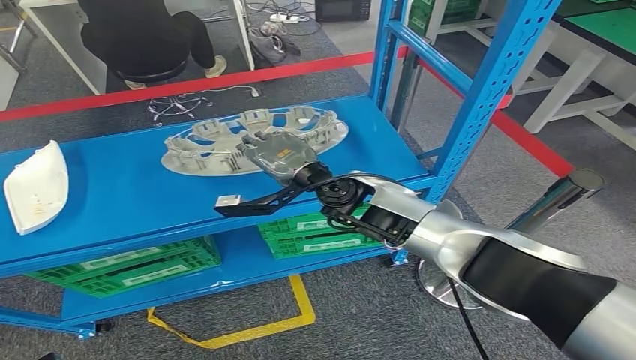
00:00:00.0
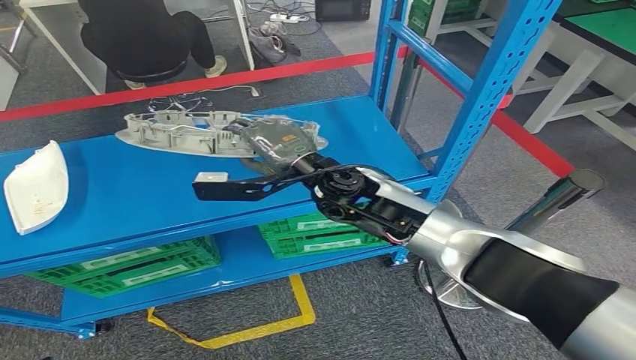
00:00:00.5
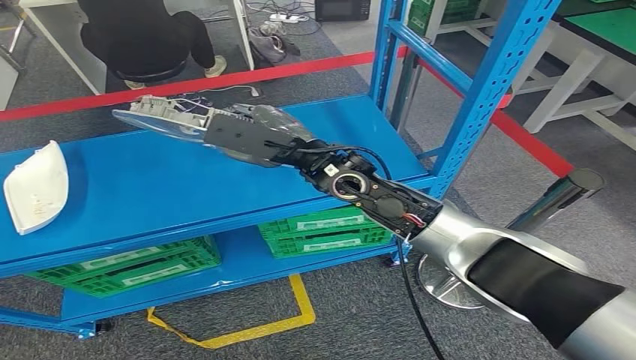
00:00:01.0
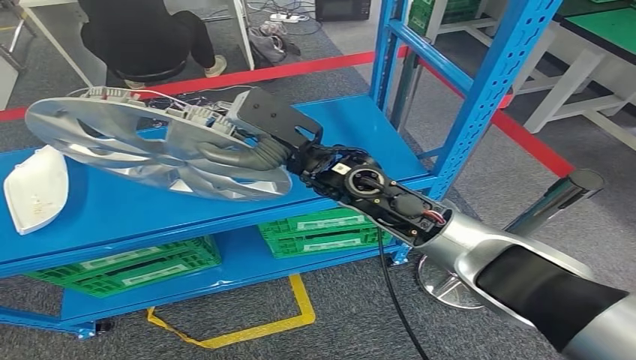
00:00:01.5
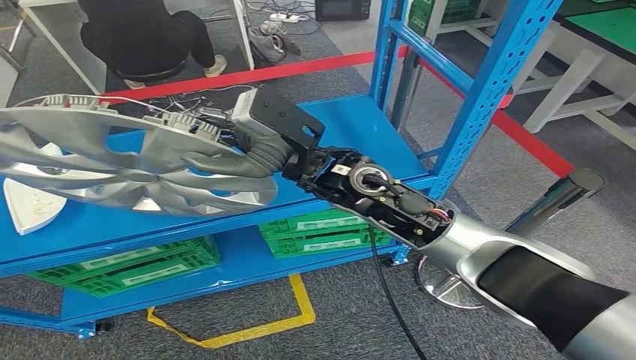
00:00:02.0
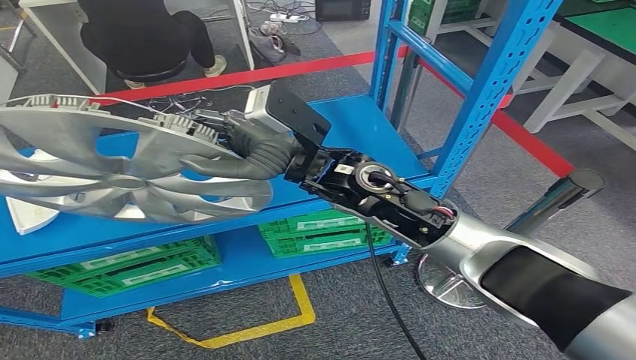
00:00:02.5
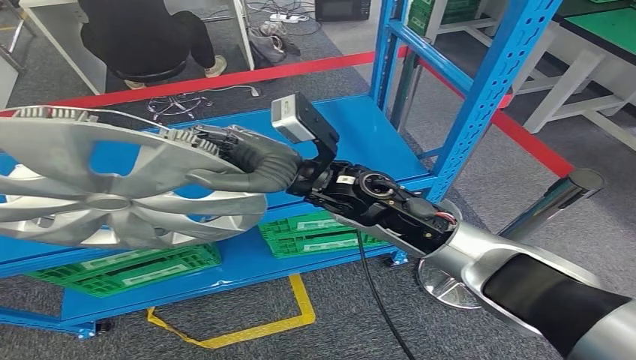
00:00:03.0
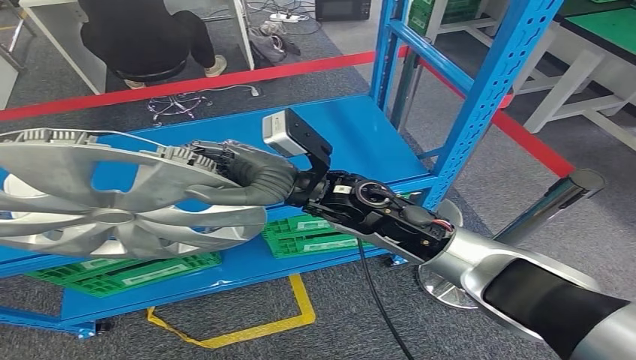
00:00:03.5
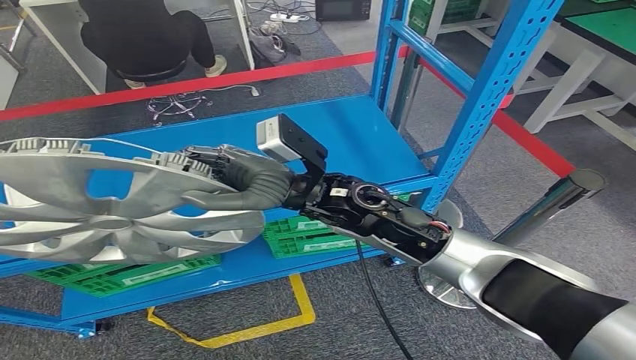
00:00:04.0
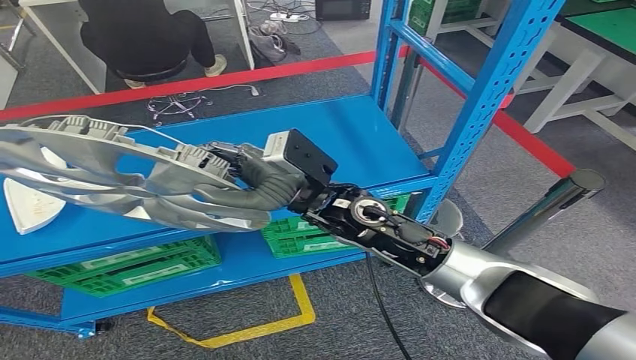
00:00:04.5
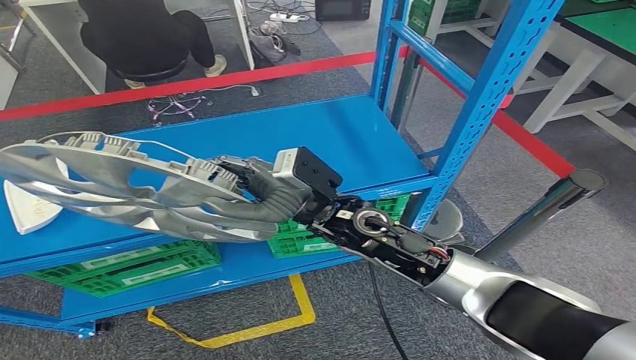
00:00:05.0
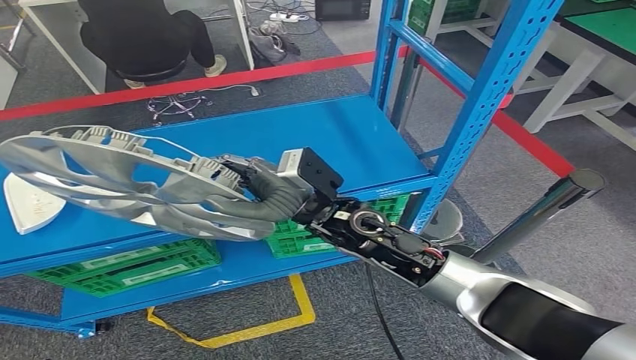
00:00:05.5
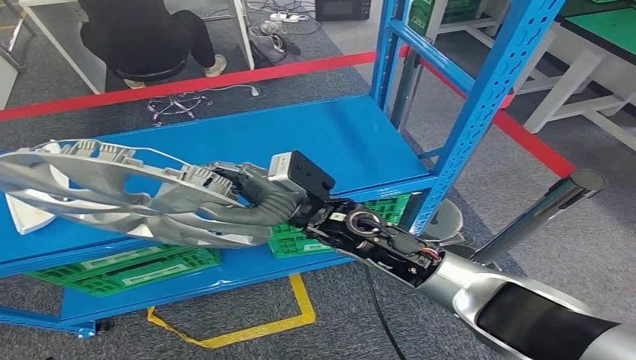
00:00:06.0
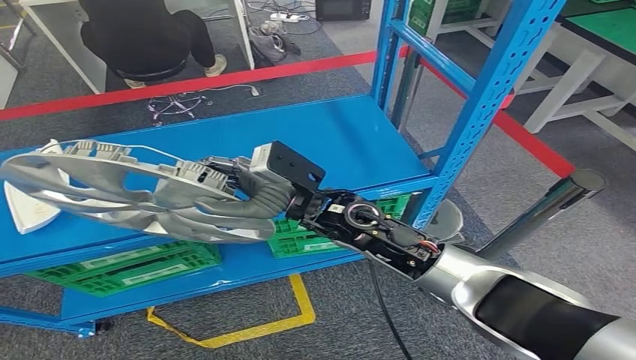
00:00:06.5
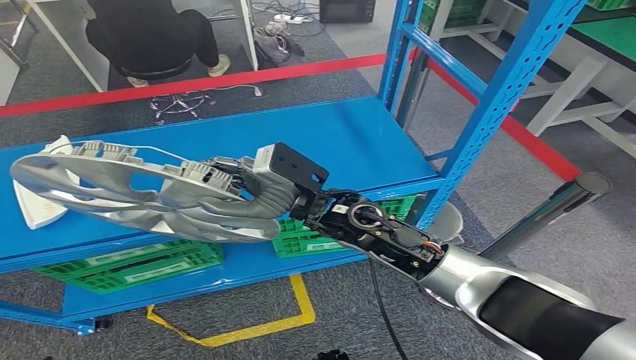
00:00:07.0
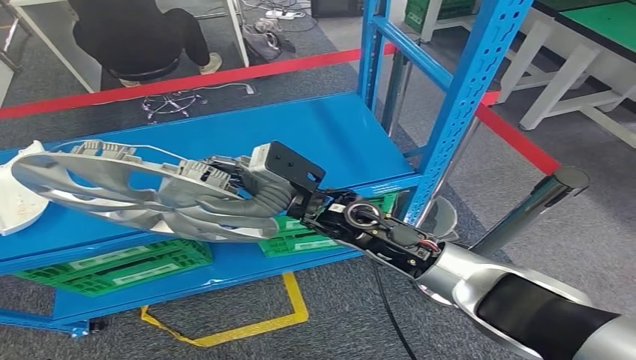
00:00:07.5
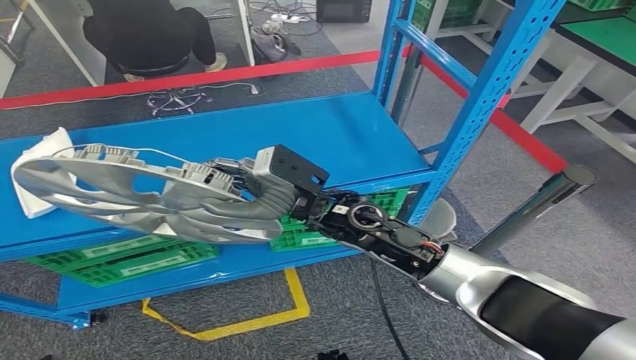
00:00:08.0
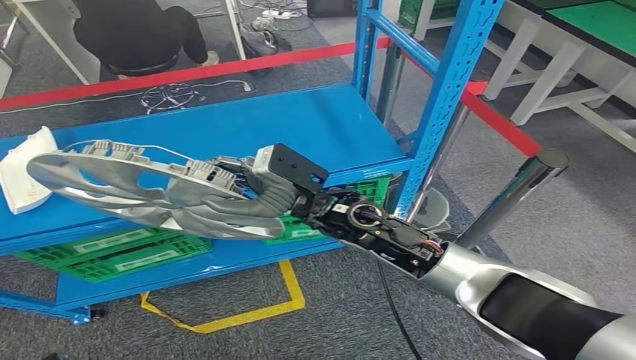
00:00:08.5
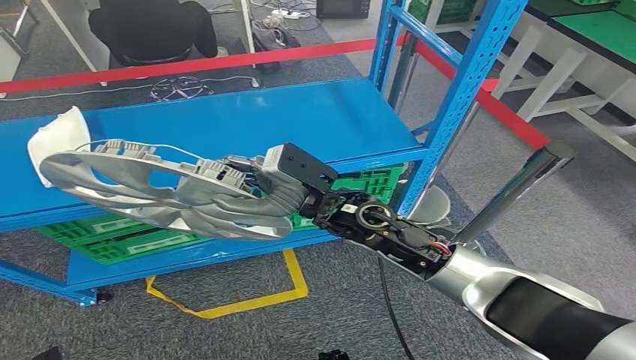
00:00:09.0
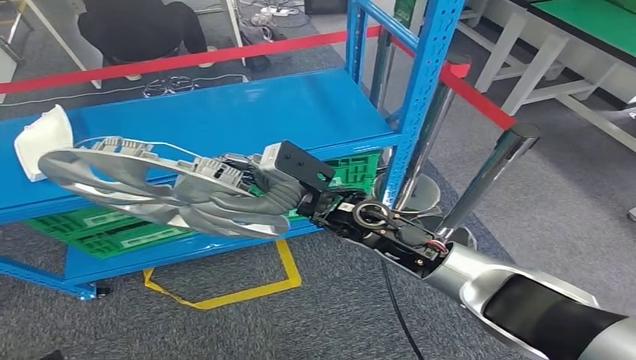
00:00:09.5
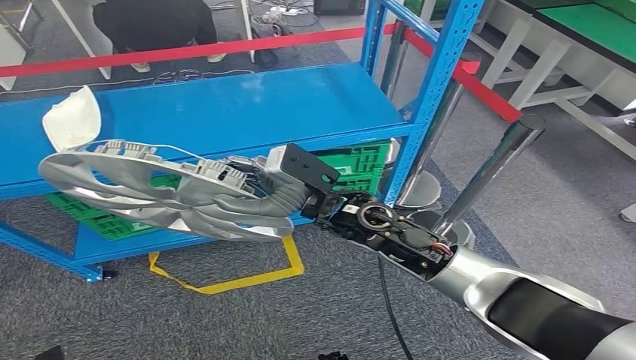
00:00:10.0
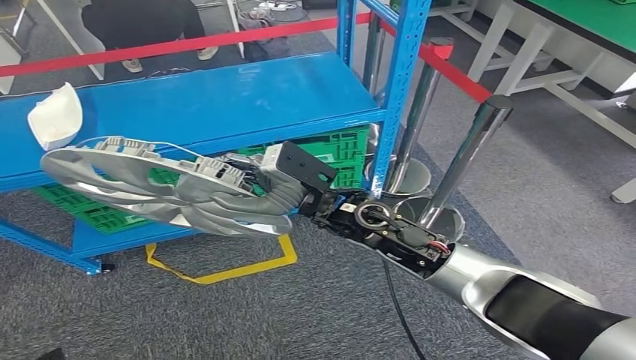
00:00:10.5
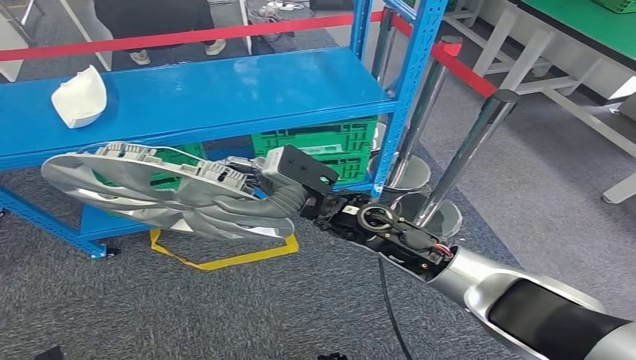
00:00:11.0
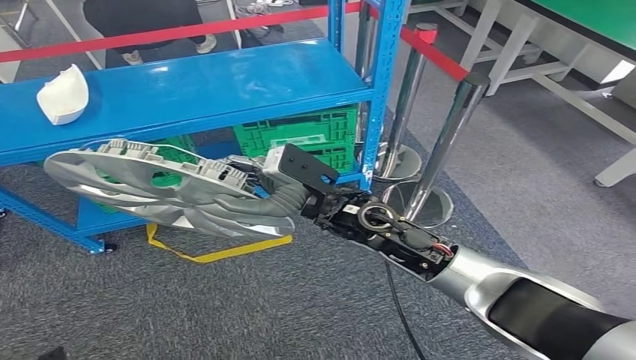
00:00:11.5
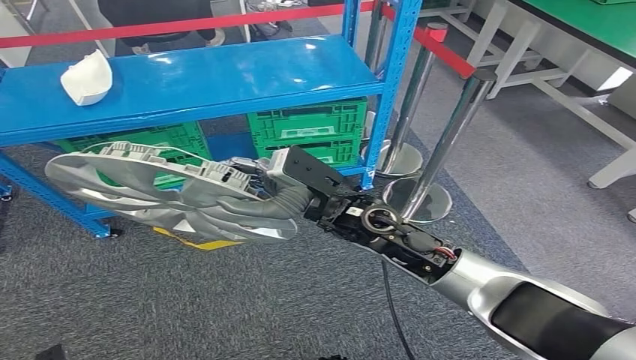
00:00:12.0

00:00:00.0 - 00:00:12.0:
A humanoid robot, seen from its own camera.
Step, 00:00:00.0 - 00:00:02.0: Pick up the small component from the shelf.
00:00:00.0 - 00:00:02.0: The right hand heads upward, covering some 10 cm.
00:00:04.0 - 00:00:06.0: The right hand travels downward by roughly 5 cm.

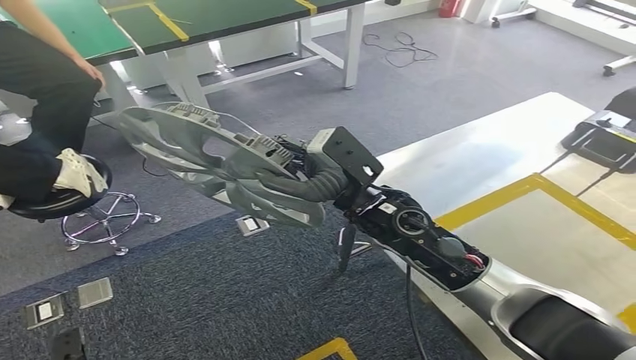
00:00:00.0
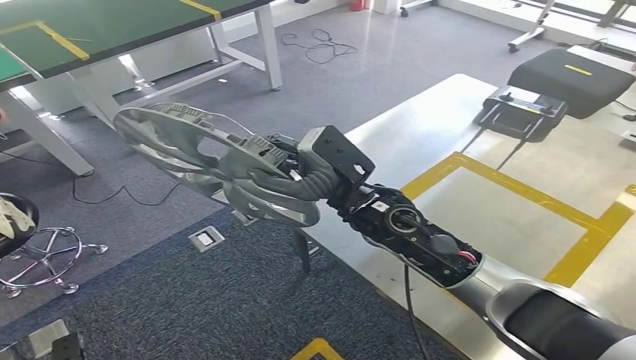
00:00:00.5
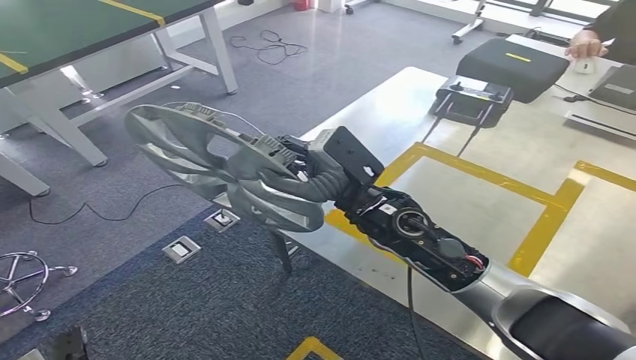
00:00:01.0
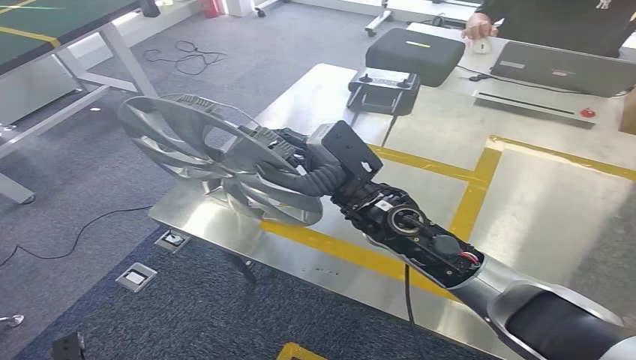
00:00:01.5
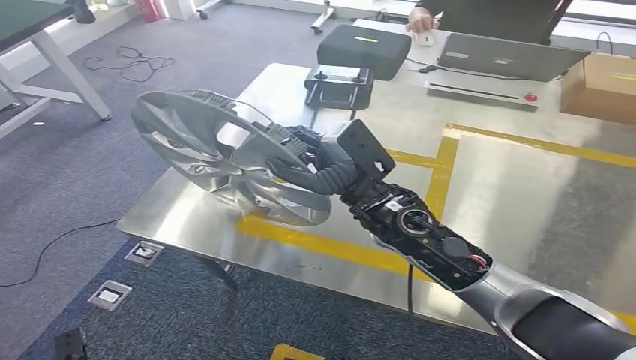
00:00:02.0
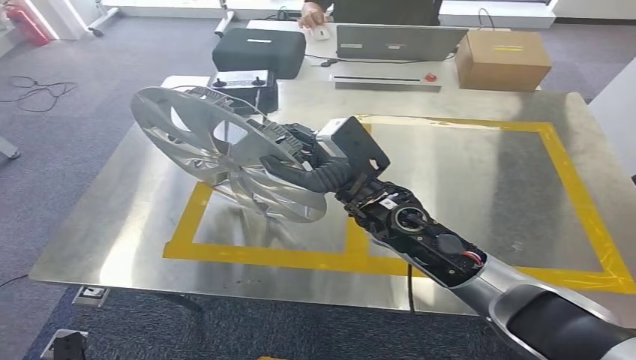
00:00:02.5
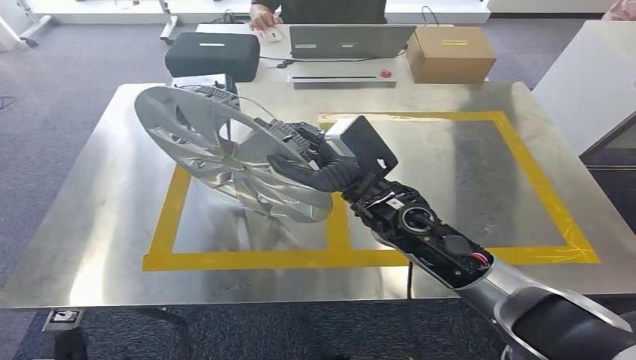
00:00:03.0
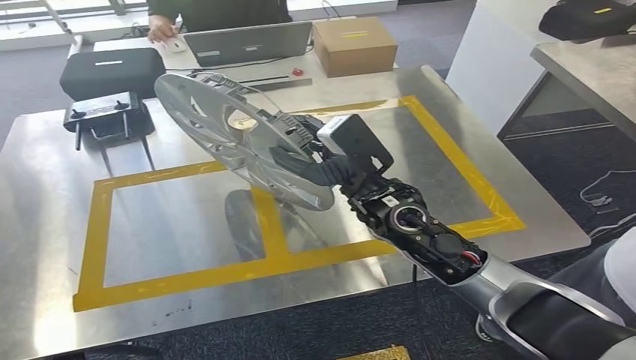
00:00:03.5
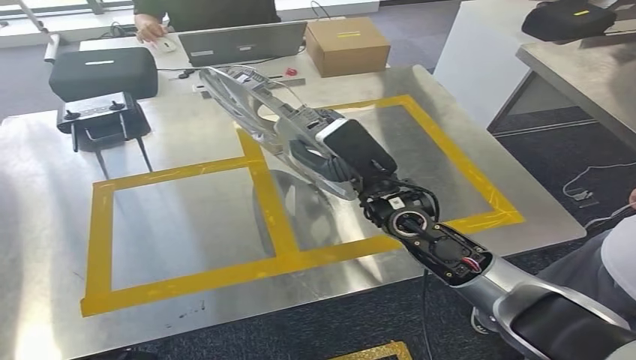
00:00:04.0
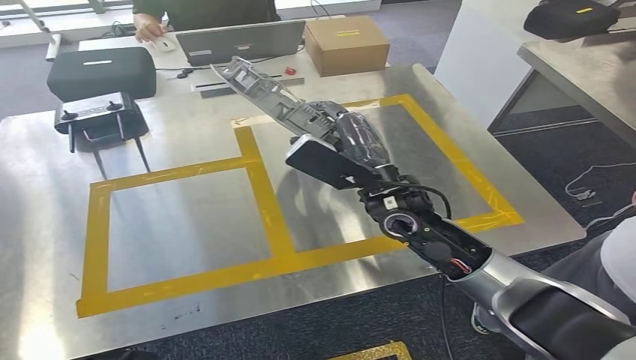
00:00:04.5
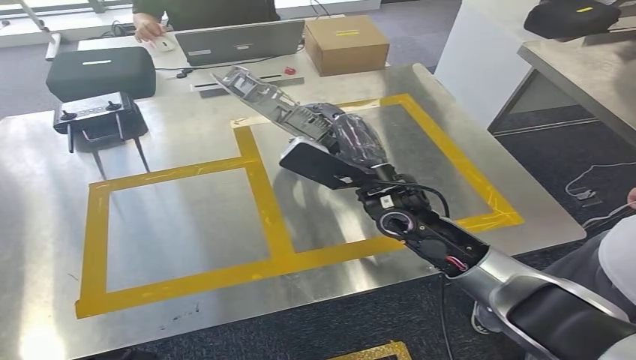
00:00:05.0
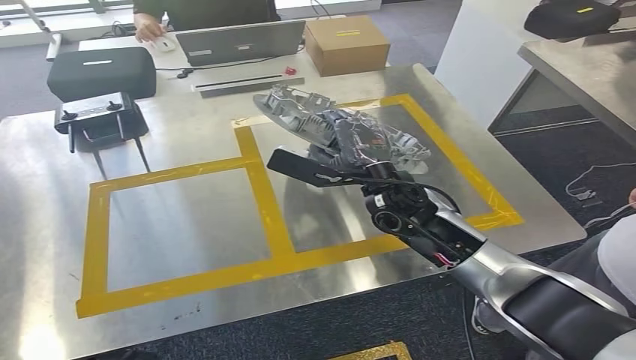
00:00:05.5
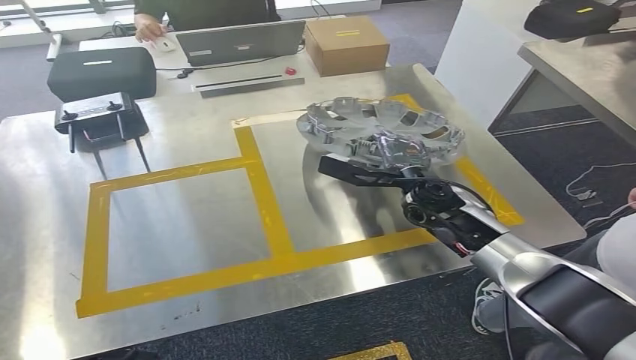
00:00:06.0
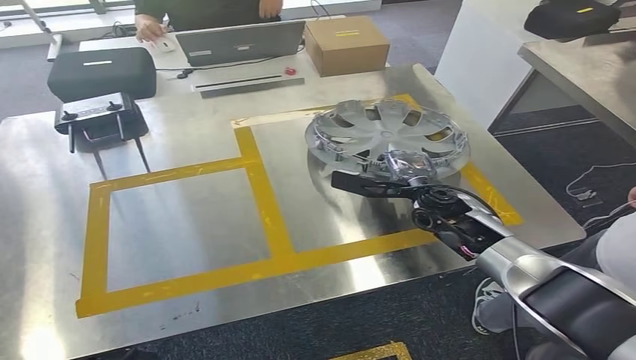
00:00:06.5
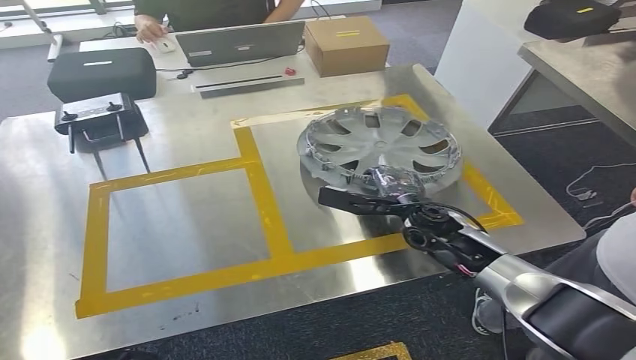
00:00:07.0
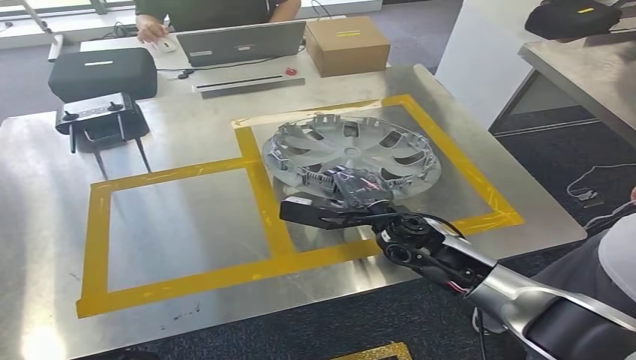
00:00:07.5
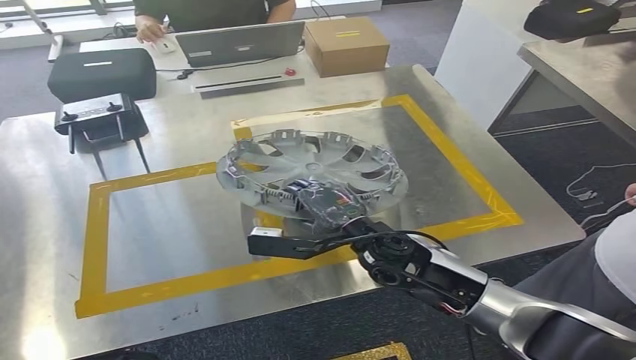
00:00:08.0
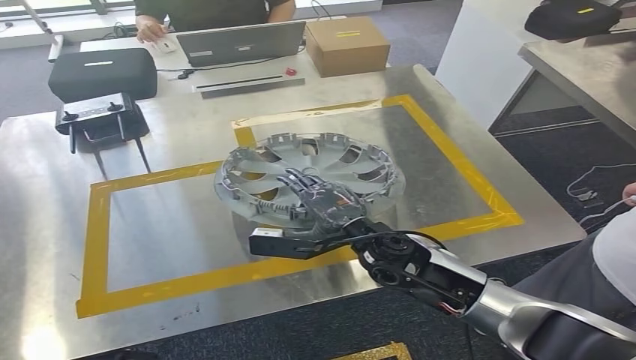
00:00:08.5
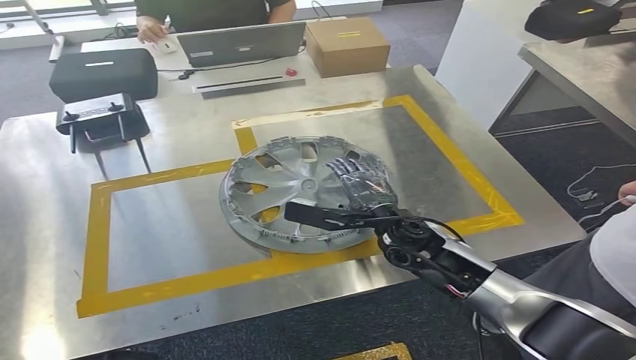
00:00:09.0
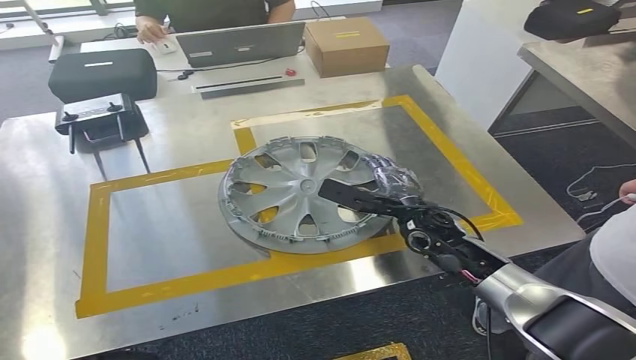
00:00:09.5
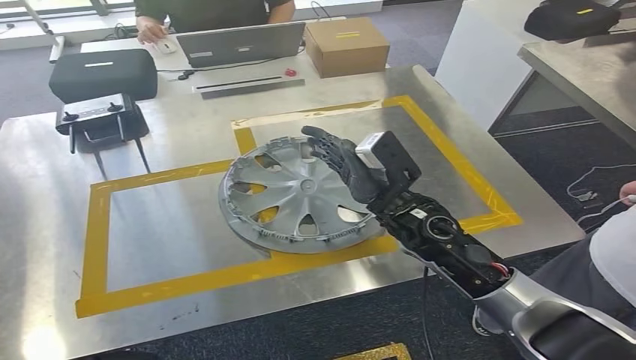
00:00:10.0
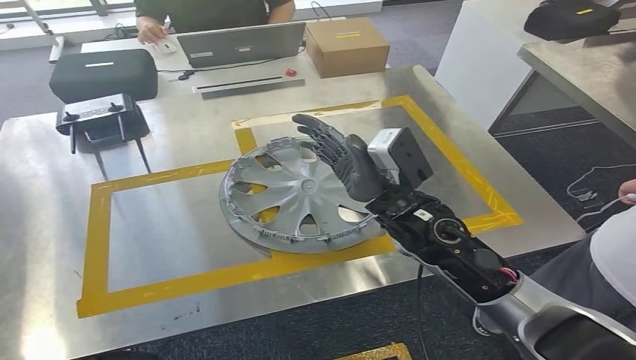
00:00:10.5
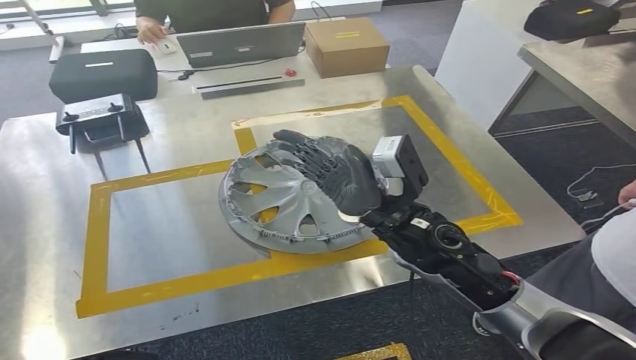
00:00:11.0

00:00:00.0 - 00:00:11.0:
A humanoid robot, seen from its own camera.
Step, 00:00:00.0 - 00:00:05.0: Bring the small component to the front of the workbench.
00:00:05.5 - 00:00:07.5: The right hand moves downward, roughly 5 cm.
00:00:07.5 - 00:00:09.0: The hands move only a little.
00:00:09.0 - 00:00:11.0: The right hand goes approximately 10 cm upward.
